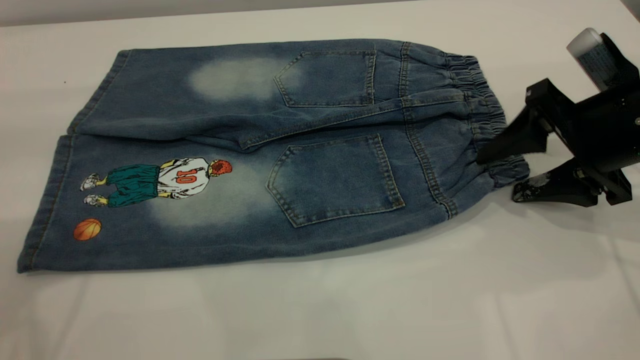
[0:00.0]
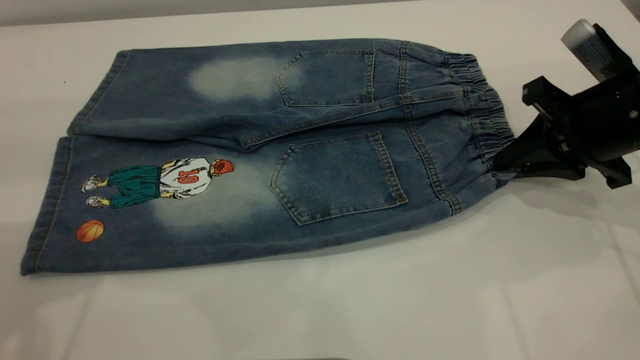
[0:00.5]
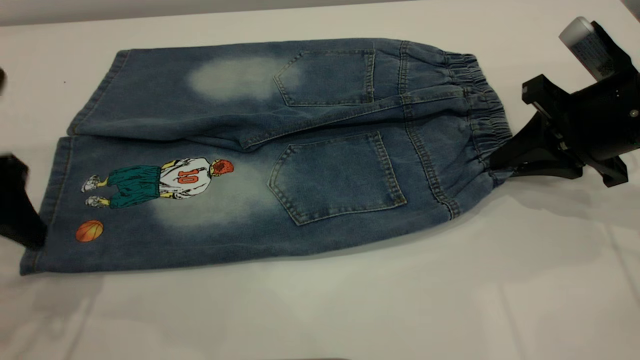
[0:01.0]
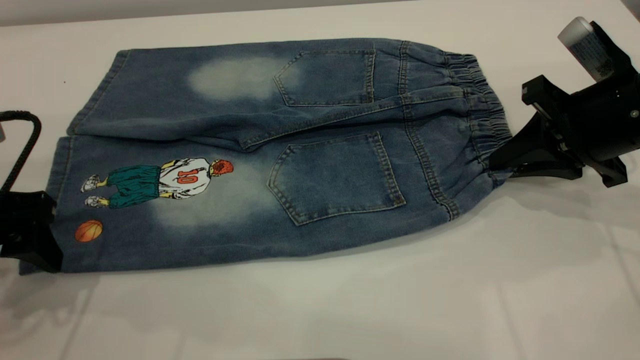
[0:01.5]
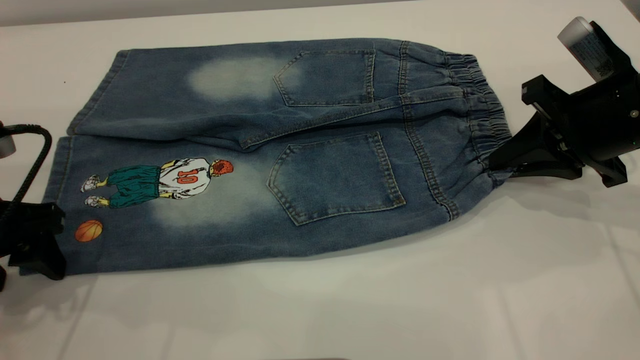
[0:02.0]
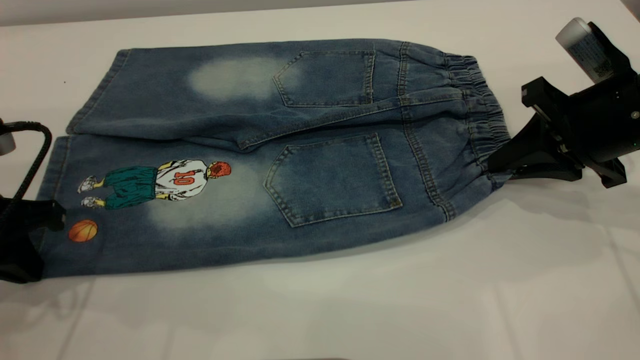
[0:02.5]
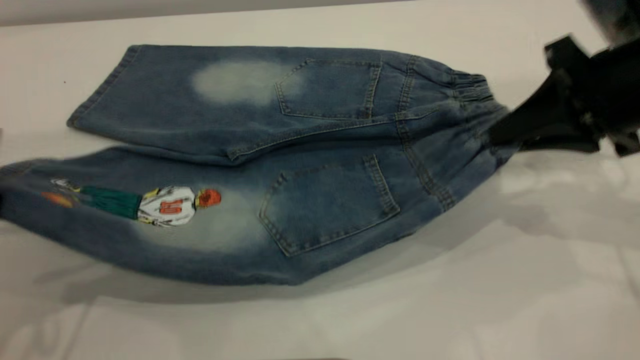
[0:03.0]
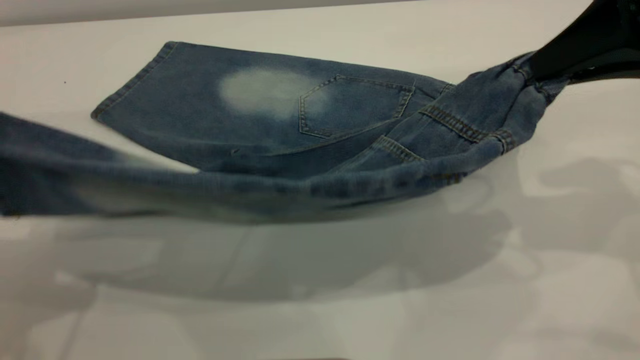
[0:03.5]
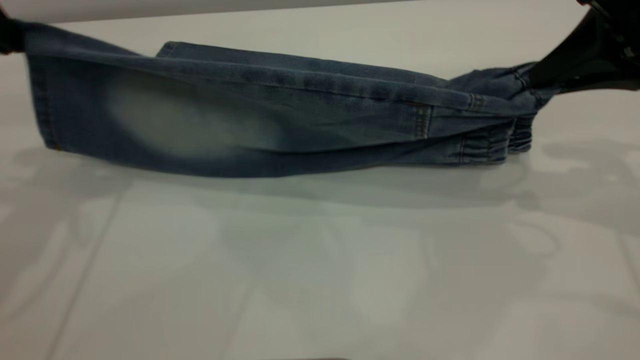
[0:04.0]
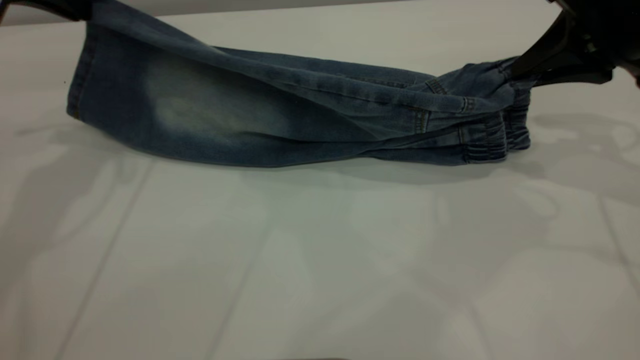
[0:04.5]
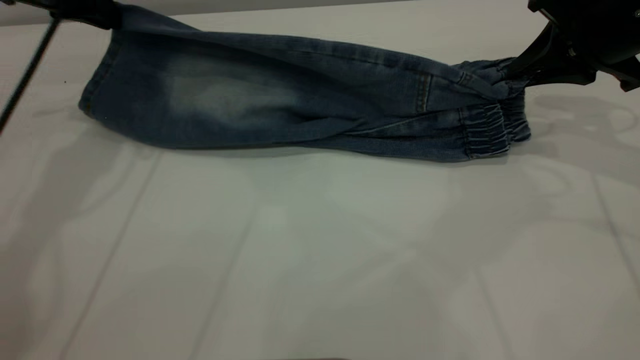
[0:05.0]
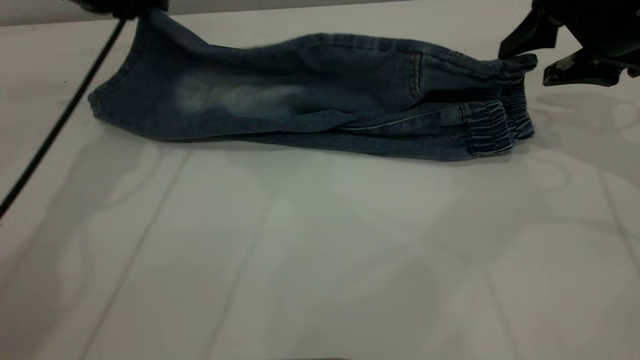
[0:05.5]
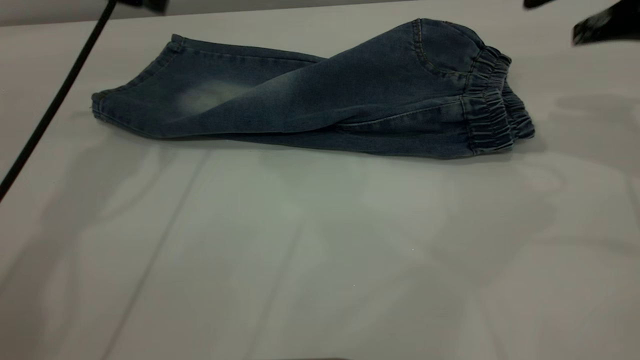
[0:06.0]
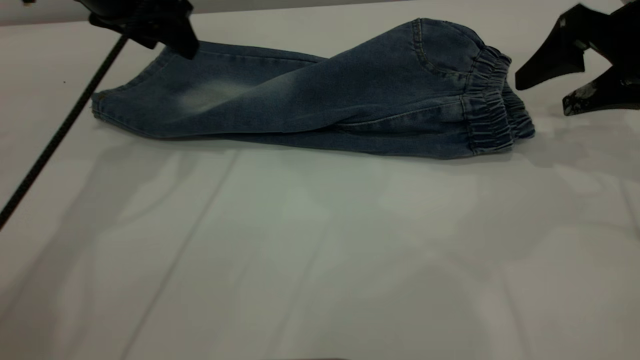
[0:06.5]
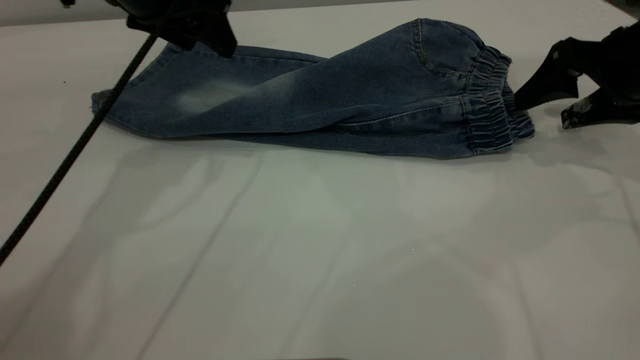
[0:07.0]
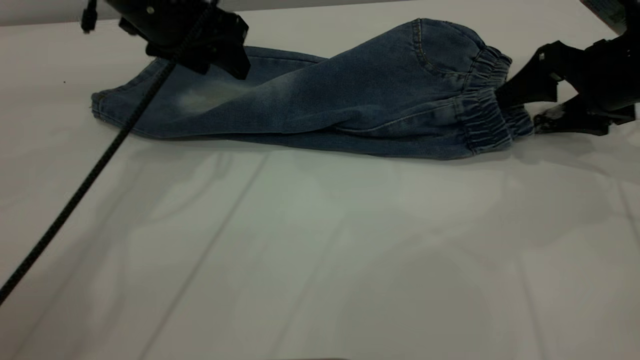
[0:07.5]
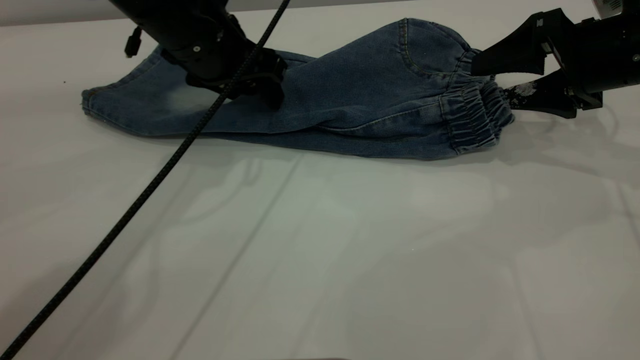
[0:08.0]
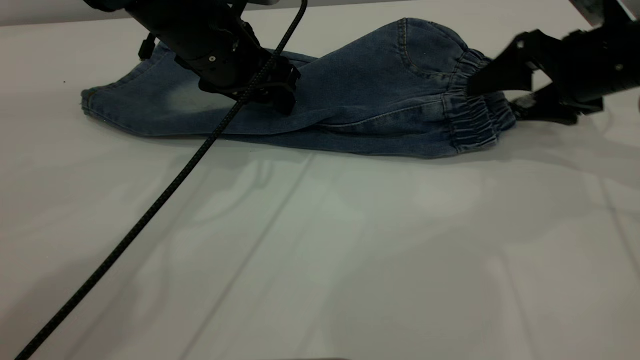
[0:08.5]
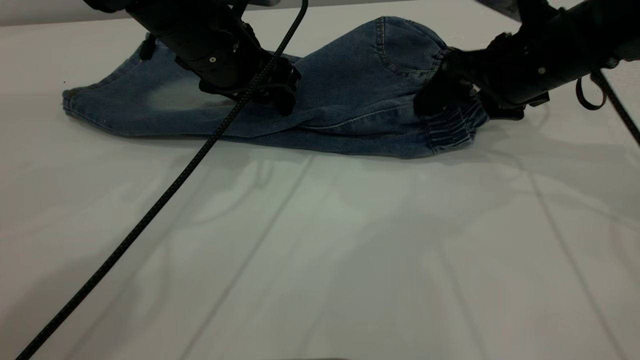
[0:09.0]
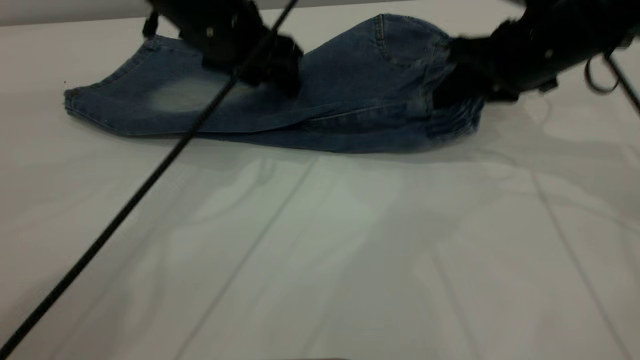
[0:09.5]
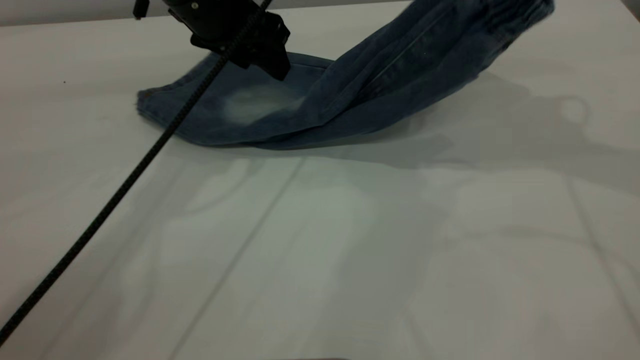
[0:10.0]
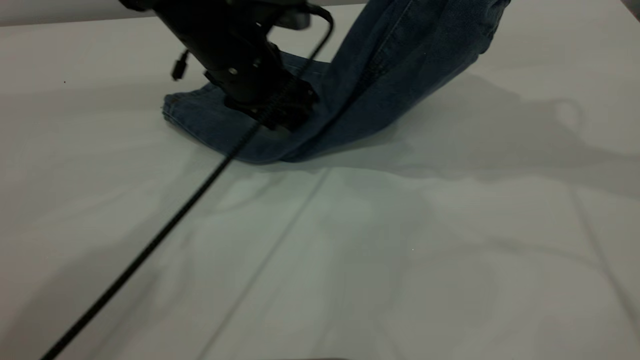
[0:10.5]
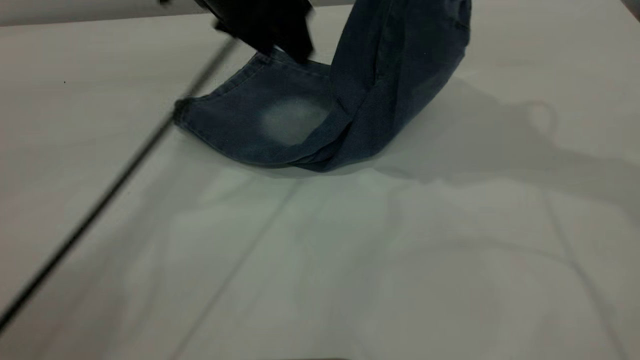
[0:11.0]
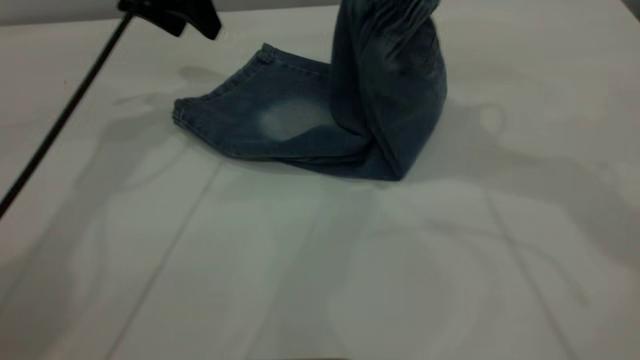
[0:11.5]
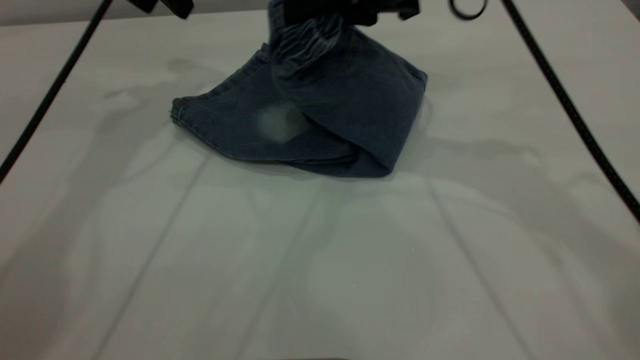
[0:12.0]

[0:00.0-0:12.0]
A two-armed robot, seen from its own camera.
Step, 0:00.0 to 0:06.0: Fold the bottom of the pants upward.
0:00.0 to 0:02.0: The left gripper is displaced downward by about 20 cm. Meanwhile the right gripper closes its fingers.
0:02.0 to 0:04.0: The left gripper shifts roughly 20 cm upward and forward, and closes its fingers. The right gripper heads upward, covering approximately 10 cm.
0:04.0 to 0:06.0: The left gripper goes approximately 10 cm forward and to the right, and opens, while the right gripper is displaced forward by some 5 cm, and opens up.
0:06.0 to 0:08.0: The left gripper travels to the right and downward by approximately 15 cm, while the right gripper goes about 10 cm downward.
0:08.0 to 0:10.0: The right gripper goes roughly 15 cm upward, and closes up.
0:10.0 to 0:12.0: The right gripper travels to the left and downward by roughly 15 cm. The left gripper heads to the left and upward, covering roughly 10 cm.

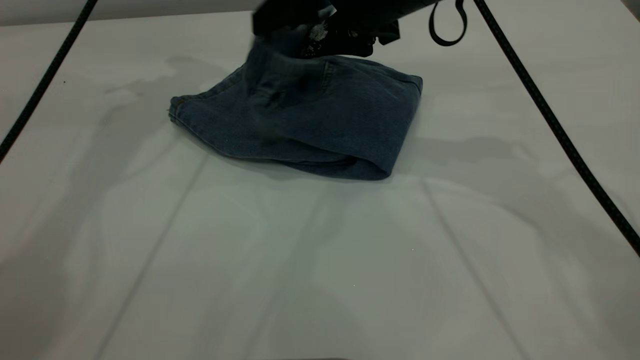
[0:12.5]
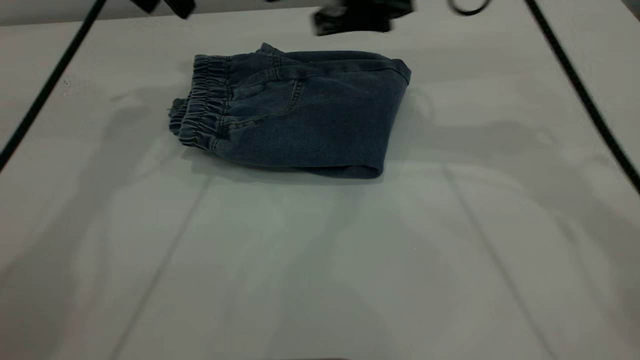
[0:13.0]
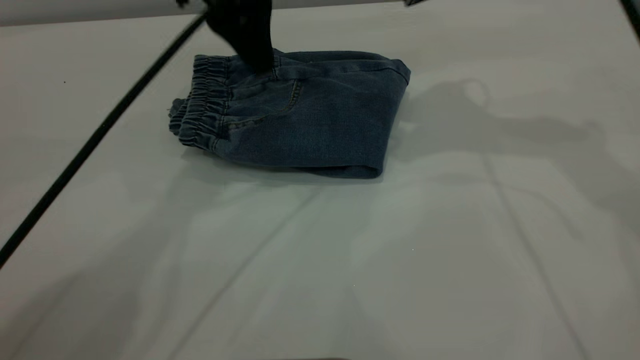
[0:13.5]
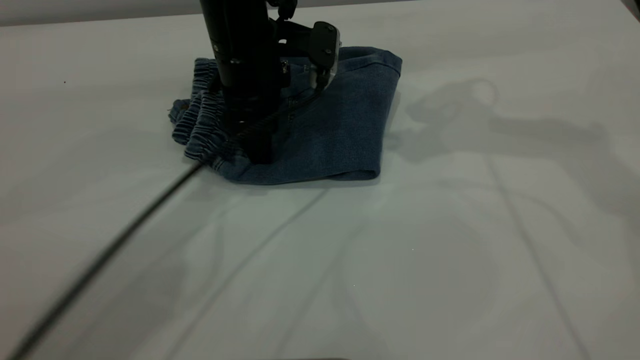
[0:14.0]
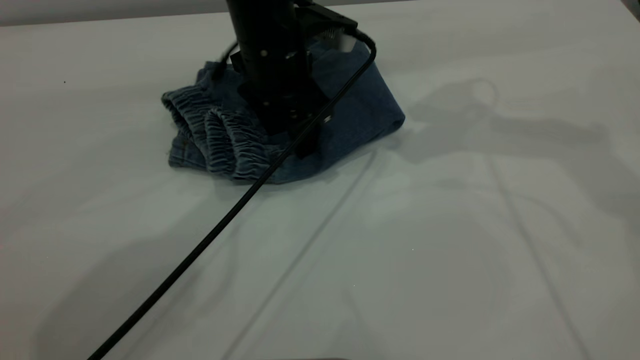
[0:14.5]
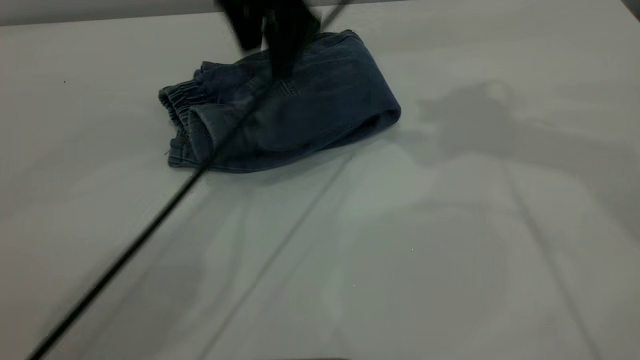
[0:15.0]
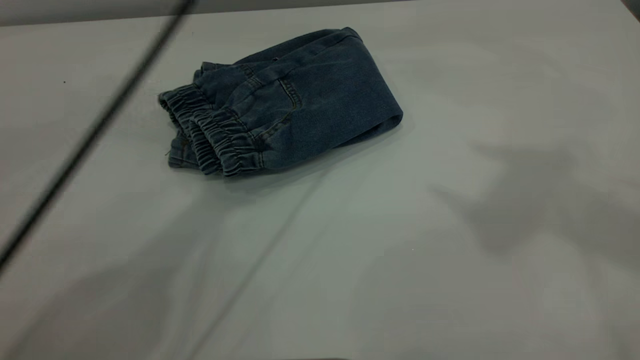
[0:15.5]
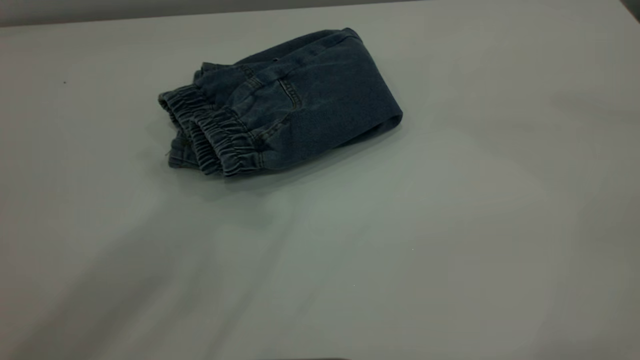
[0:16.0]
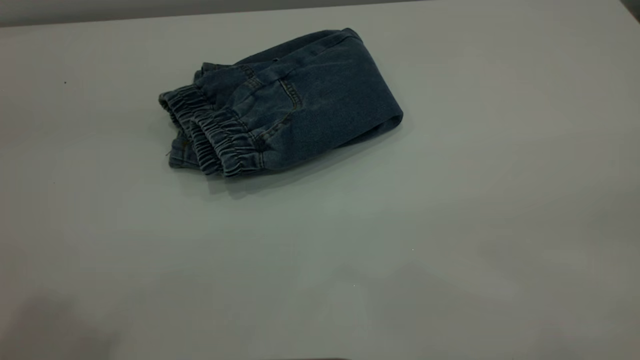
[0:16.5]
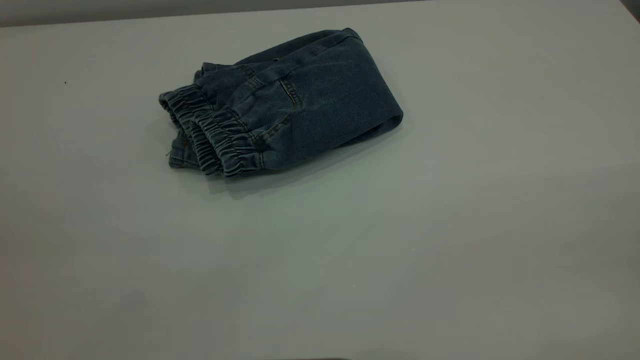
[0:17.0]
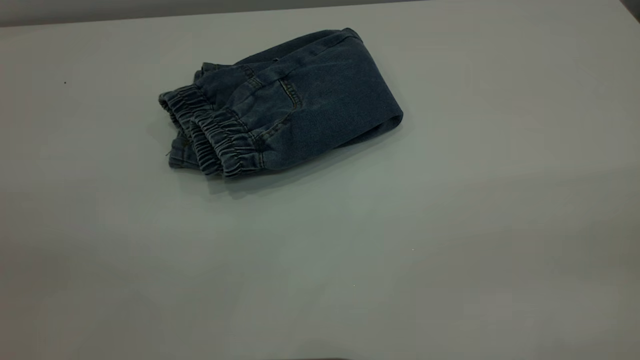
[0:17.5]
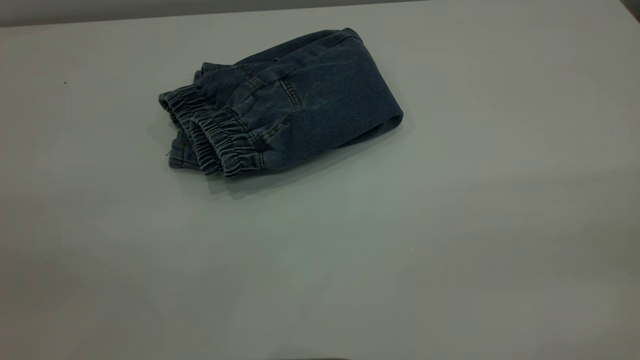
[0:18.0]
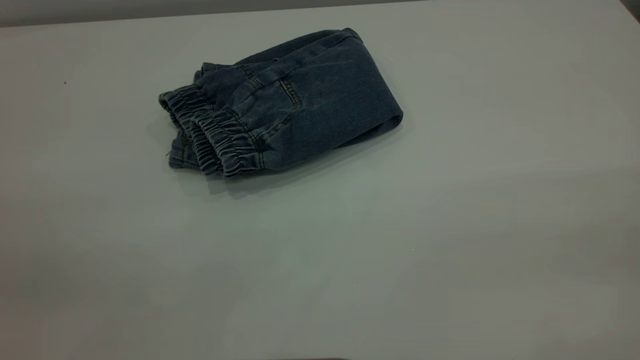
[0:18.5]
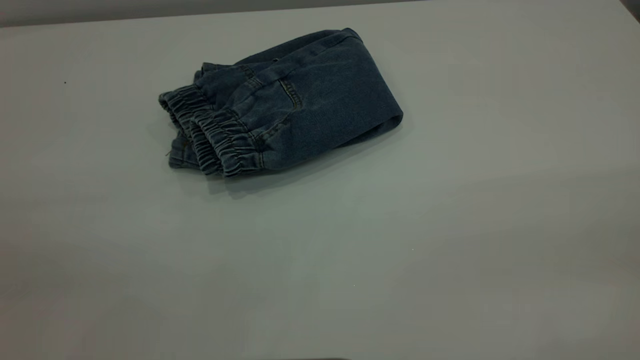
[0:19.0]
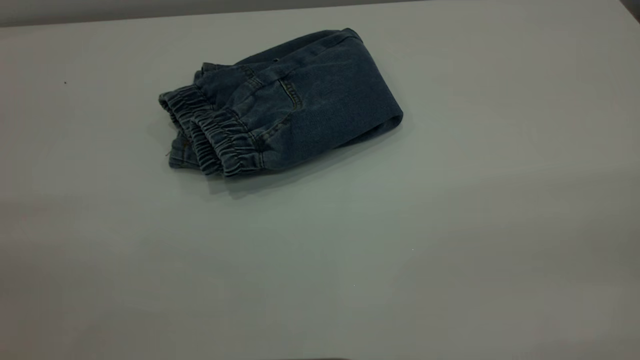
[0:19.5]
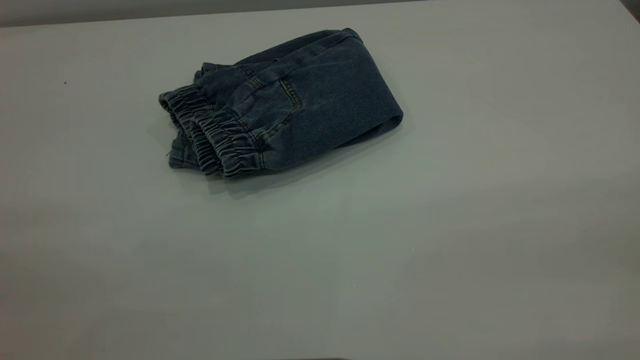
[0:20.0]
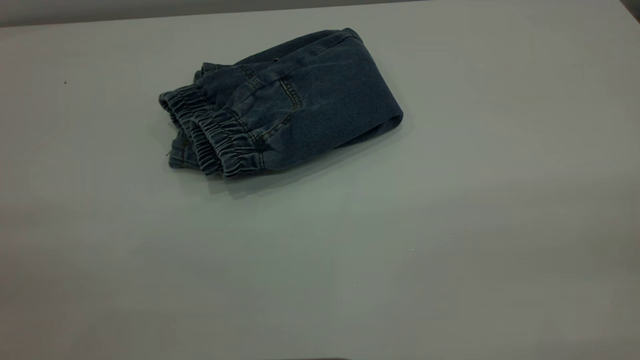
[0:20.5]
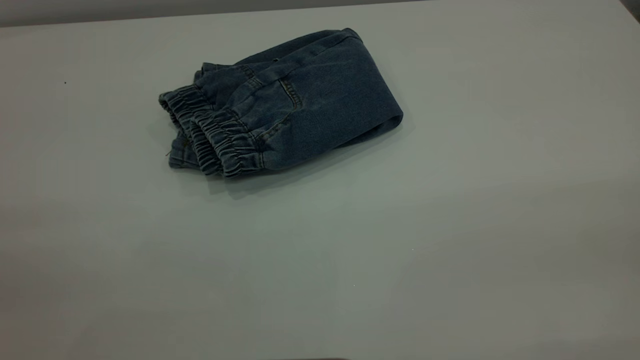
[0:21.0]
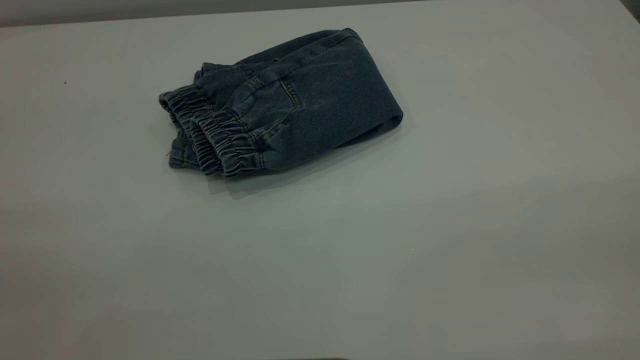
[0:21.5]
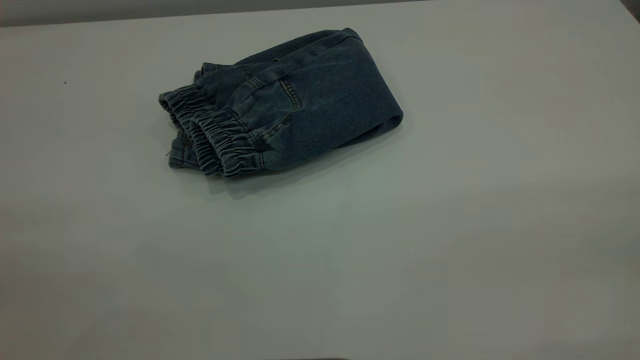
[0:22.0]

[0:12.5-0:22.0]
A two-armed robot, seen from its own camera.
0:12.5 to 0:14.5: The right gripper is displaced to the right and upward by some 10 cm, while the left gripper goes some 20 cm to the right and downward.
0:14.5 to 0:16.5: The left gripper moves upward, backward and to the left, approximately 50 cm. Meanwhile the right gripper goes about 40 cm backward.
